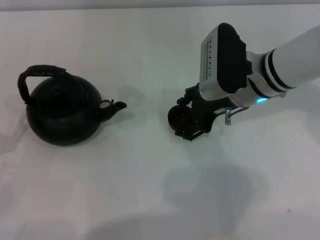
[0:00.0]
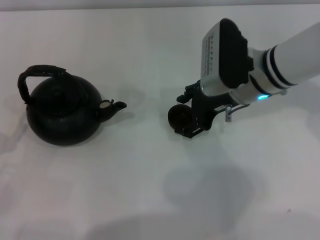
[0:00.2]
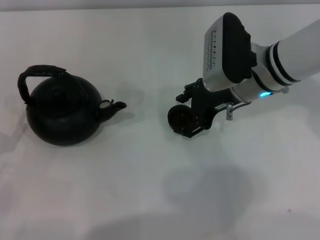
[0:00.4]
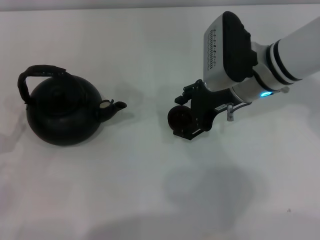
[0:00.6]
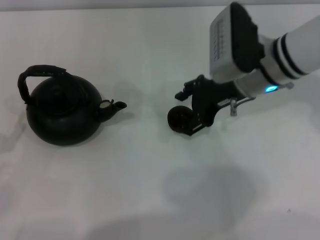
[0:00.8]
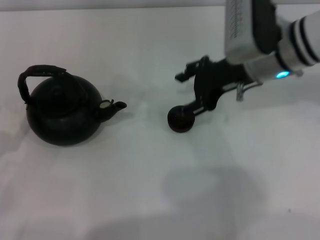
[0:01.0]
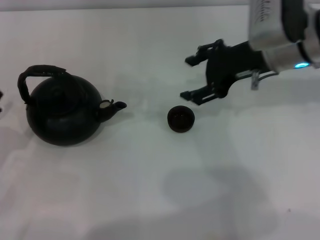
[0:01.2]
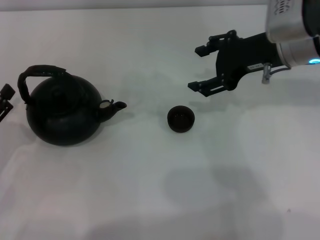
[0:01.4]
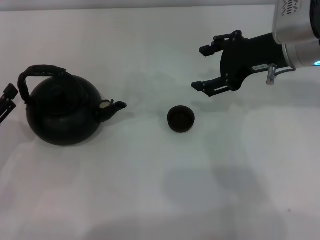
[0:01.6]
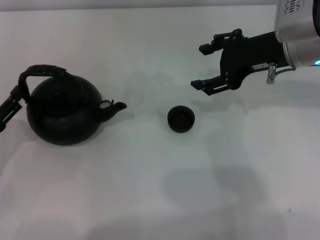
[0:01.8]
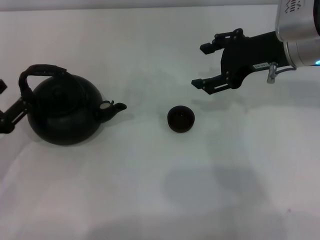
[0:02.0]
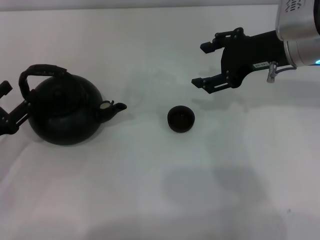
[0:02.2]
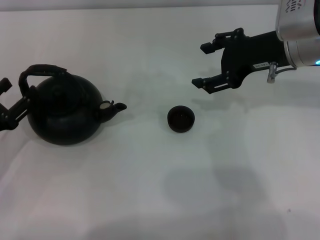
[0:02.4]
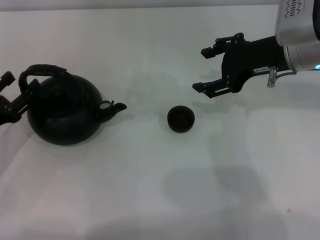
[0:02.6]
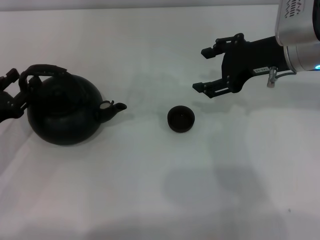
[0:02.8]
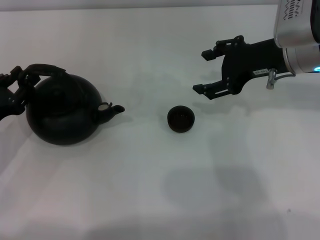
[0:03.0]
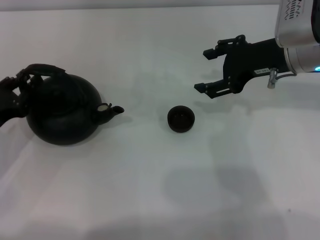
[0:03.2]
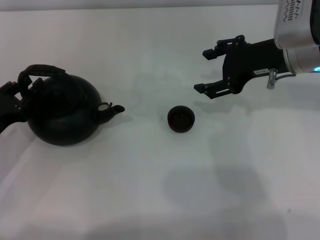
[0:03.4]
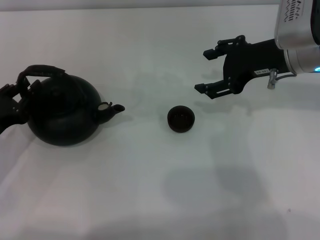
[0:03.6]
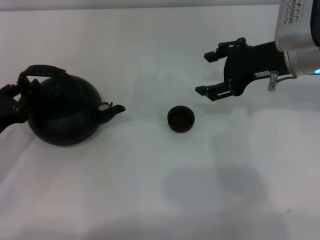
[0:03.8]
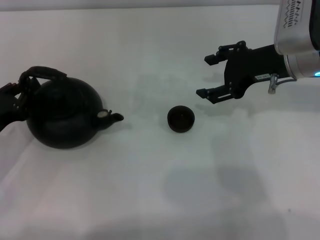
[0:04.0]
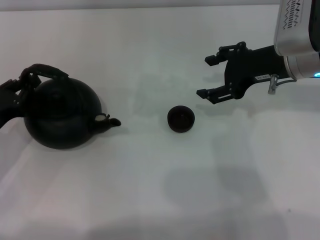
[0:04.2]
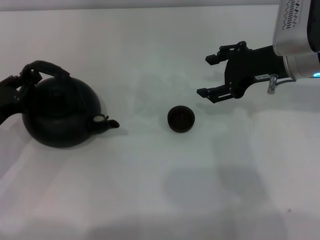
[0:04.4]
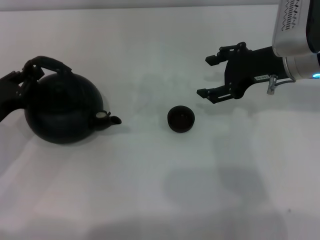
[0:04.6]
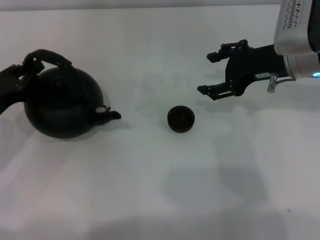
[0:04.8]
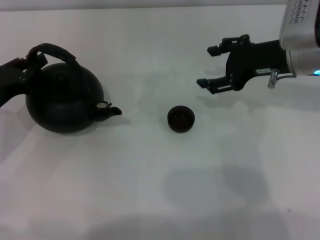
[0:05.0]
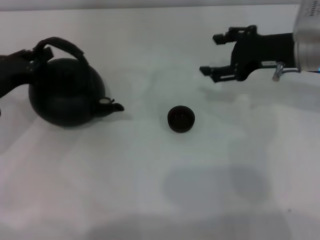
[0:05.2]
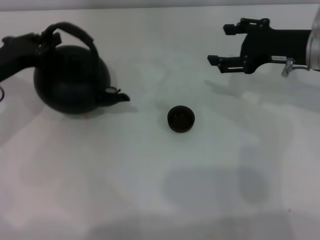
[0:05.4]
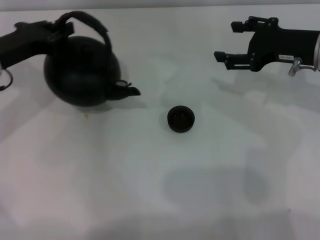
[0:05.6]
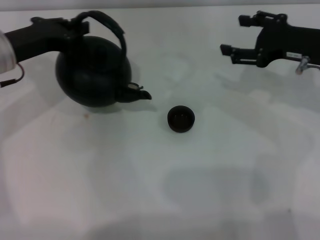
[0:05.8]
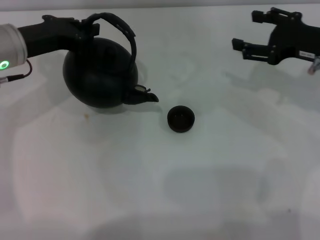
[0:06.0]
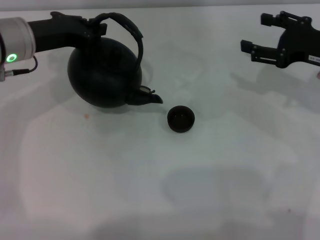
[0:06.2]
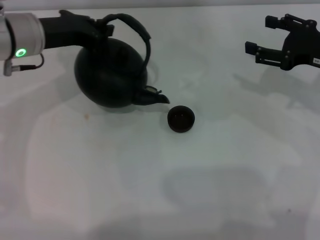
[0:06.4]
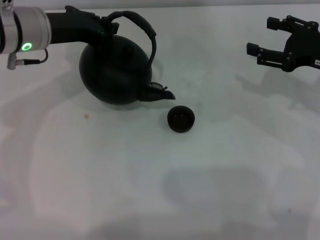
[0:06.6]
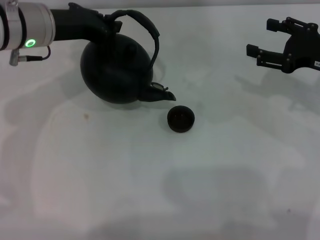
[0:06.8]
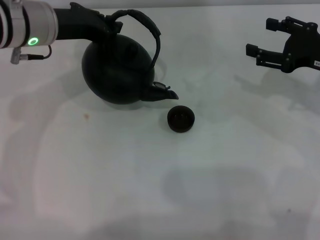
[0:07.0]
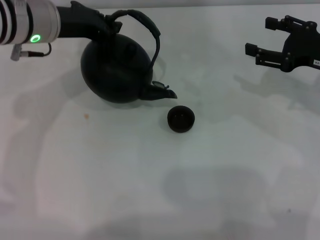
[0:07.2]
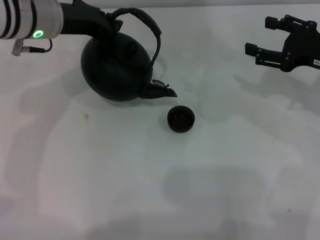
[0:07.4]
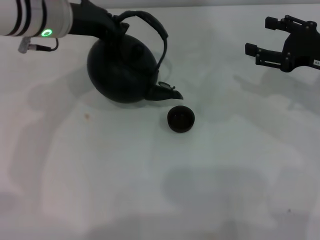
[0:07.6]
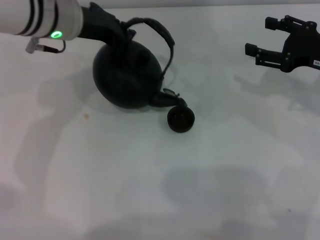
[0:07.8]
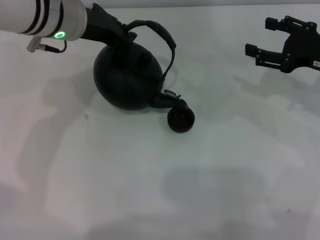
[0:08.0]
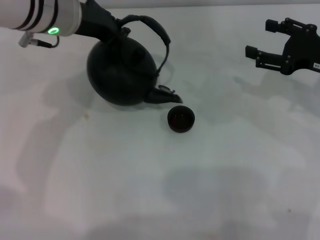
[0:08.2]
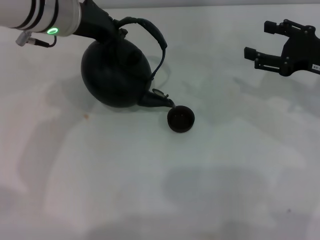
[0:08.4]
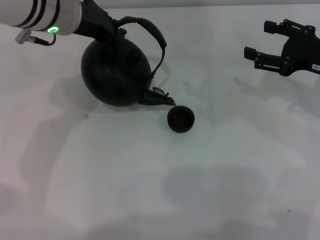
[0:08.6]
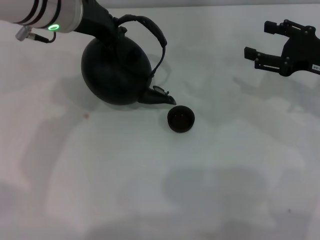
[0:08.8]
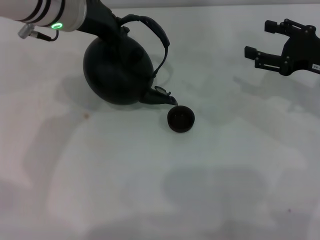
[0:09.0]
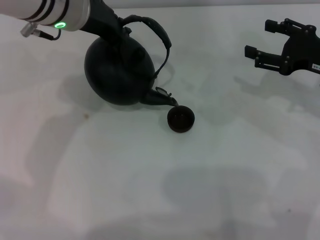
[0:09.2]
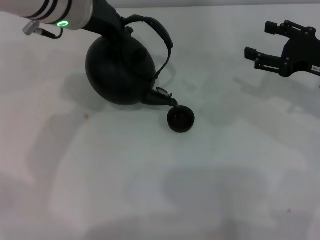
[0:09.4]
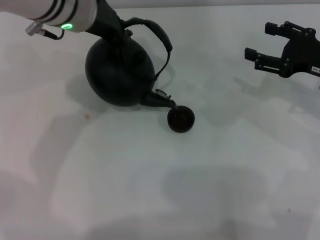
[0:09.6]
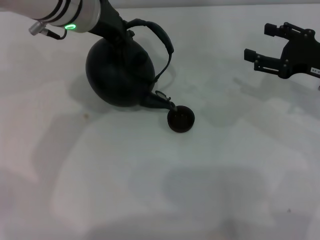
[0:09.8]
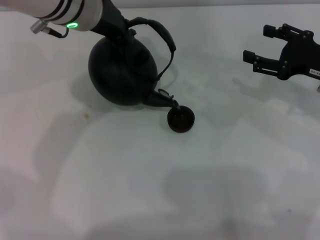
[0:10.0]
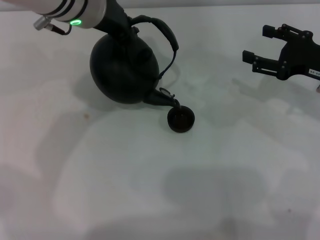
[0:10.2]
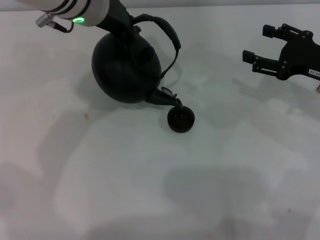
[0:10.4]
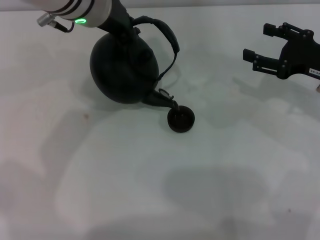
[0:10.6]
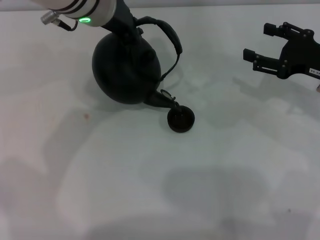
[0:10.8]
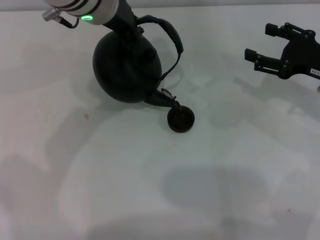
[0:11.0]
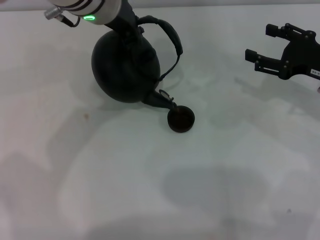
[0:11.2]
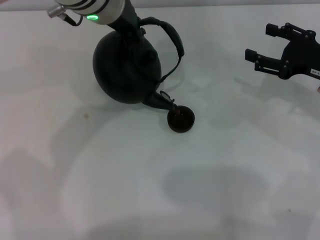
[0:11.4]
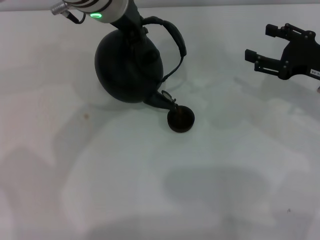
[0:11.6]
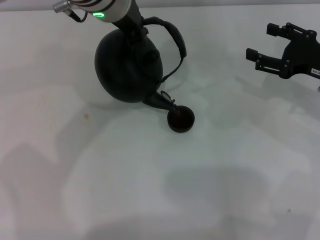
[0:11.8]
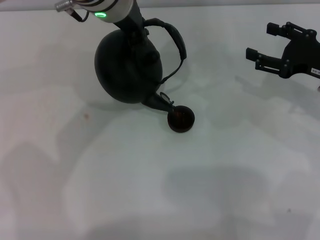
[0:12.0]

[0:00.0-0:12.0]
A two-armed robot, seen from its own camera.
Task of the whole recording: Grasp the handle of the teapot with one hand and pour tea into the teacup.
Step, 0:01.4 to 0:05.4: Pick up the teapot with the left gripper.
0:00.0 to 0:01.6: The right gripper moves upward and to the right, some 10 cm.
0:01.6 to 0:03.0: There are only small adjustments of the grippers.
0:03.0 to 0:04.4: The left gripper closes.
0:04.4 to 0:06.0: The right gripper travels to the right by roughly 10 cm; the left gripper is displaced forward, upward and to the right by roughly 15 cm.
0:06.0 to 0:07.6: The left gripper shifts some 5 cm to the right.
0:07.6 to 0:09.0: There are only small adjustments of the grippers.
0:09.0 to 0:10.4: The grippers stay close to where they were, moving slightly.
0:10.4 to 0:12.0: The grippers move only a little.

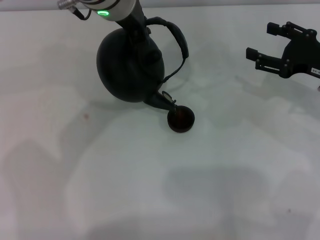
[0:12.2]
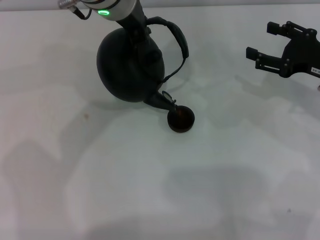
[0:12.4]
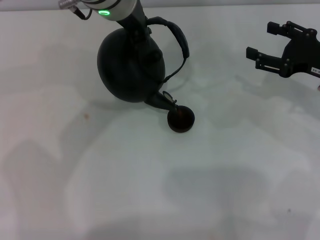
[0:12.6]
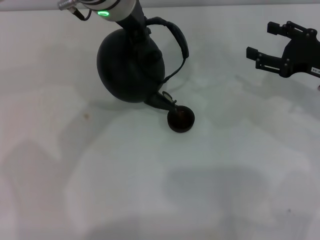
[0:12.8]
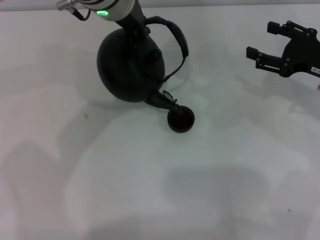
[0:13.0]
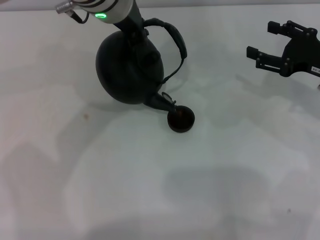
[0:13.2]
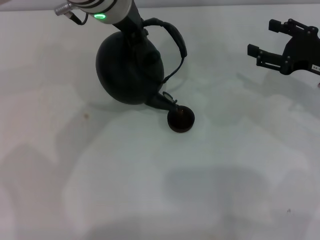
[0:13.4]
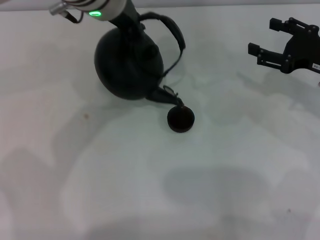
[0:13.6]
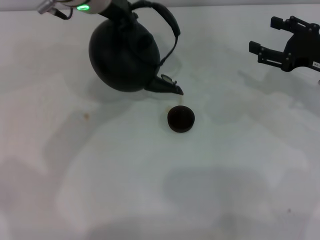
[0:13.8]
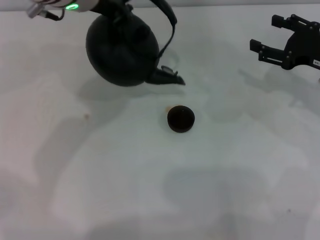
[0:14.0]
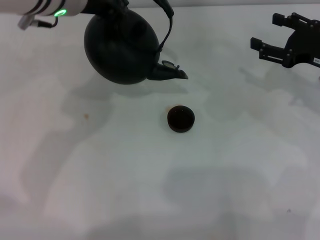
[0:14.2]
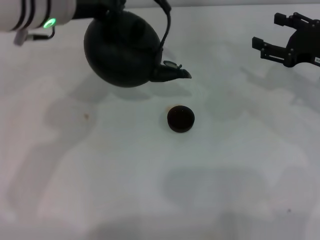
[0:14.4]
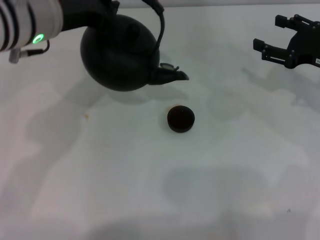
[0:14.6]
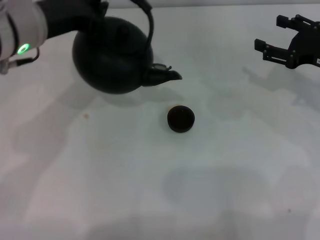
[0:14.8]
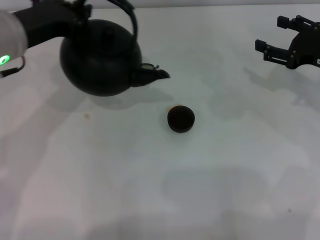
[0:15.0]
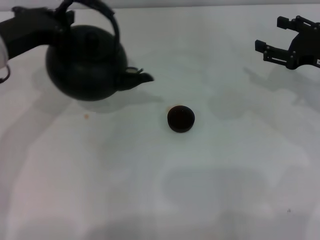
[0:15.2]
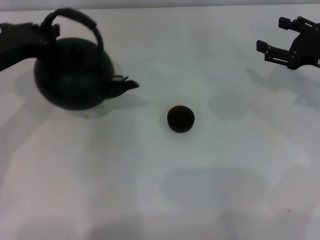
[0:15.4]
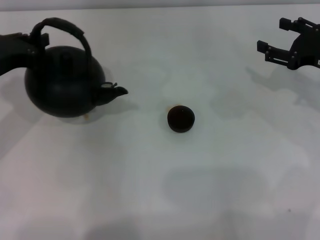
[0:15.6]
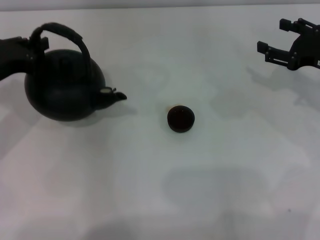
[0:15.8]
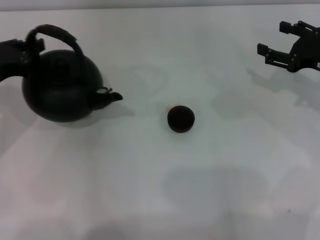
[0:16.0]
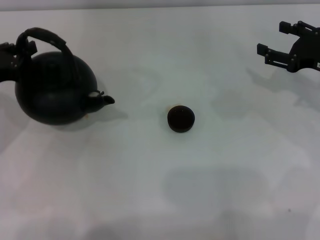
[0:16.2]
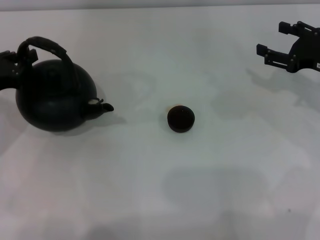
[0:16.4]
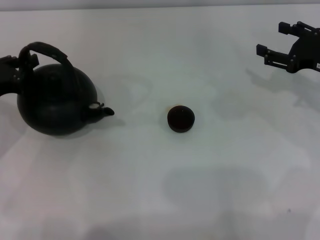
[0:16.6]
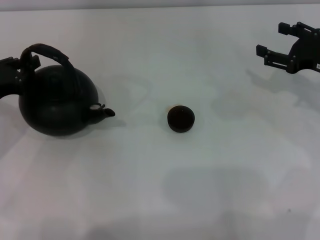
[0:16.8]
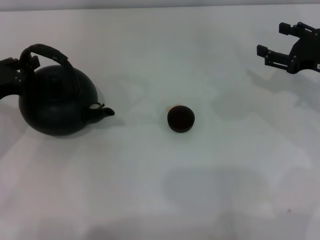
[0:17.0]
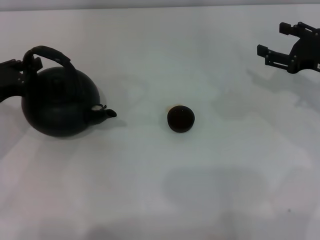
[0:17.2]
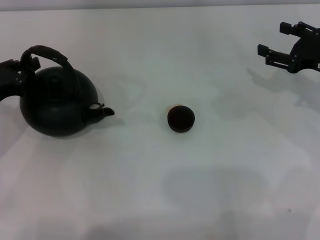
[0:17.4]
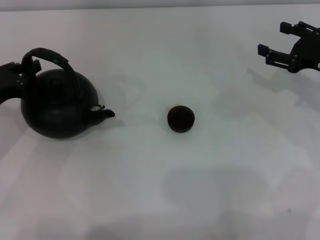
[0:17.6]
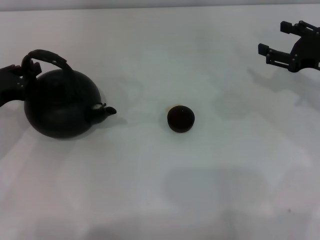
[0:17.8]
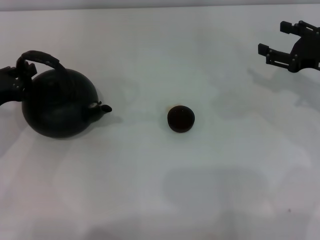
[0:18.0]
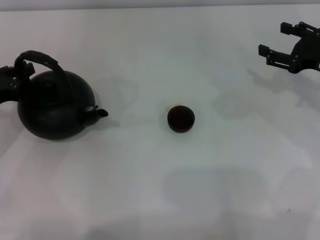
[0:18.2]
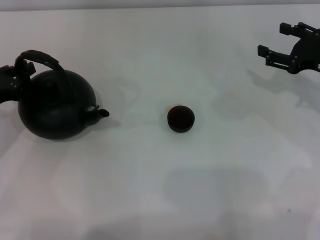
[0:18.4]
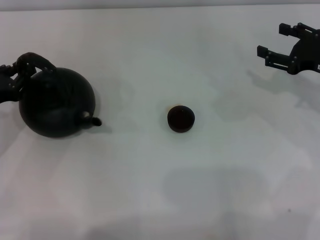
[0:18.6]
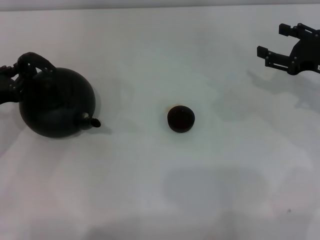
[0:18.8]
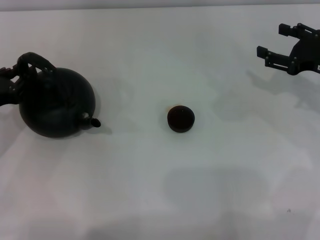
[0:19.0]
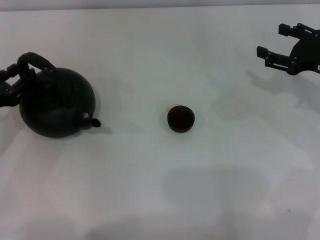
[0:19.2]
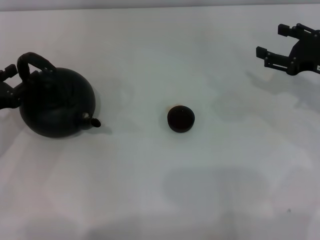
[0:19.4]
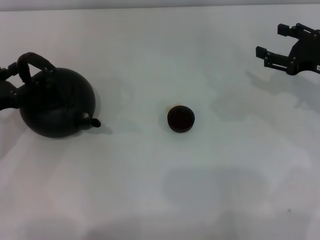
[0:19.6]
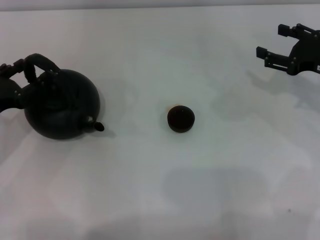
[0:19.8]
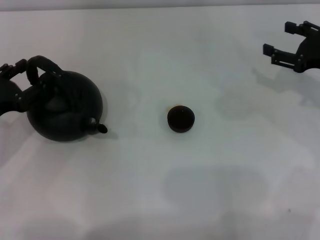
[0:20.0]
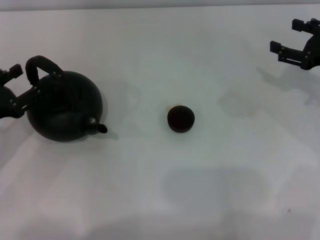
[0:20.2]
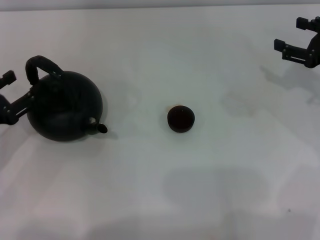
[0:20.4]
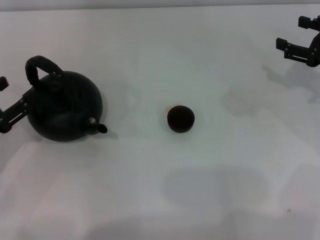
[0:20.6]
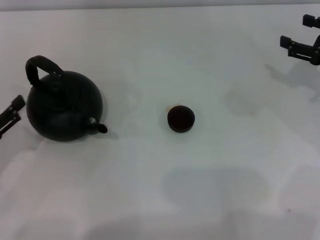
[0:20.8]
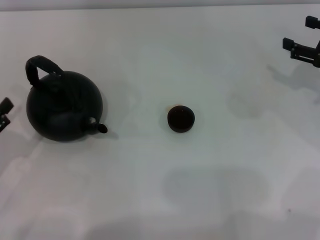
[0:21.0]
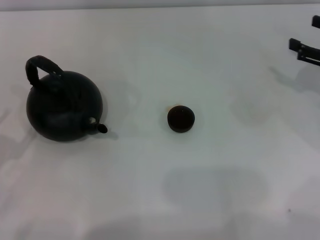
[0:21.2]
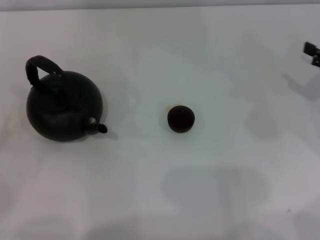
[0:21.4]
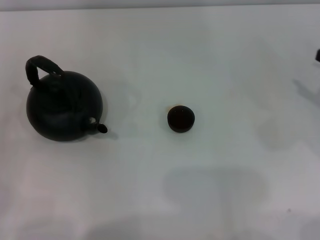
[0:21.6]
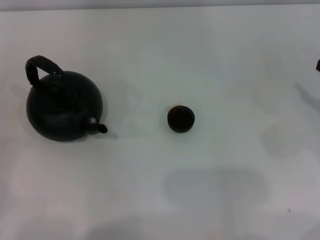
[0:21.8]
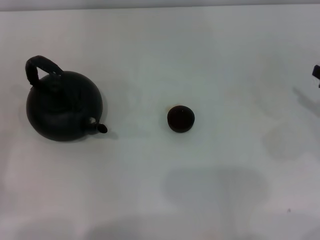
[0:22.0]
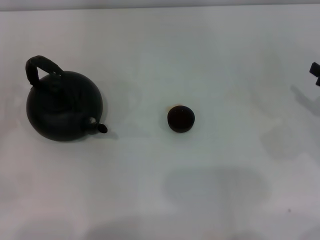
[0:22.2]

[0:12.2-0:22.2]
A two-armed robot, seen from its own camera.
Task of the whole recording: Grasp the handle of the teapot with one hand and pour tea into the teacup.
Step, 0:14.2 to 0:20.6: Put down the teapot with the left gripper.
0:12.2 to 0:13.6: The grippers stay close to where they were, moving slightly.
0:13.6 to 0:15.0: The left gripper travels to the left and backward by approximately 15 cm.
0:15.0 to 0:16.4: The left gripper heads to the left and downward, covering about 15 cm.
0:16.4 to 0:18.0: There are only small adjustments of the grippers.
0:18.0 to 0:19.4: The left gripper opens up.
0:19.4 to 0:20.8: The left gripper is displaced backward by approximately 5 cm, and opens up.
0:20.8 to 0:22.2: The right gripper goes approximately 10 cm backward. The left gripper travels to the left by about 10 cm.
